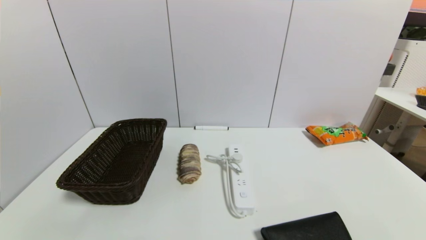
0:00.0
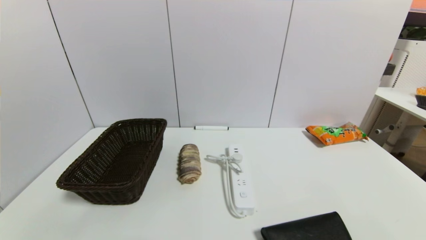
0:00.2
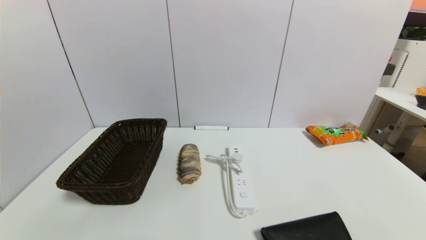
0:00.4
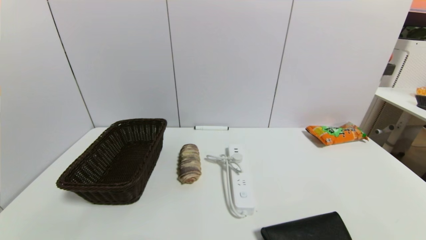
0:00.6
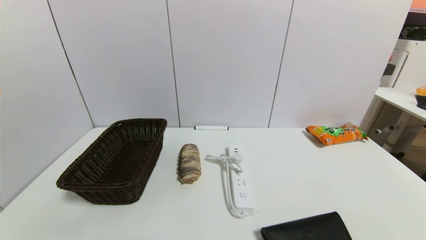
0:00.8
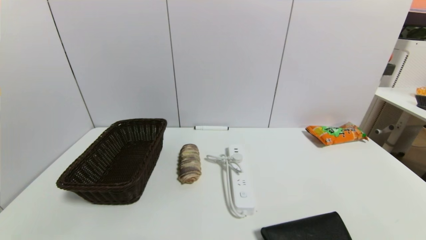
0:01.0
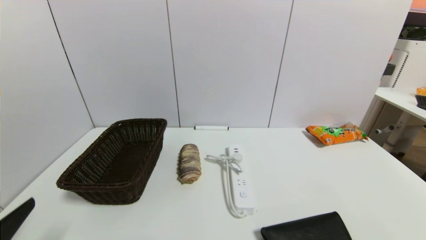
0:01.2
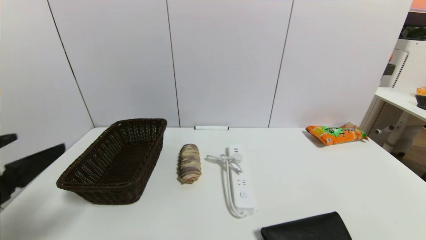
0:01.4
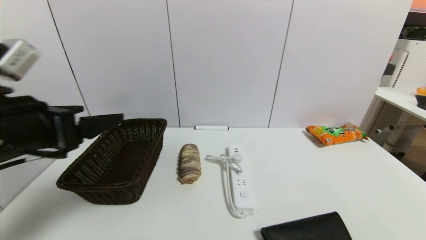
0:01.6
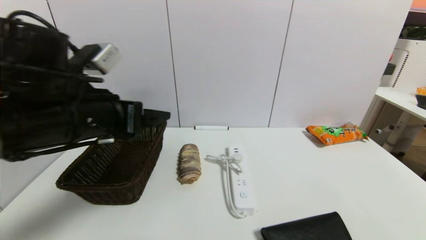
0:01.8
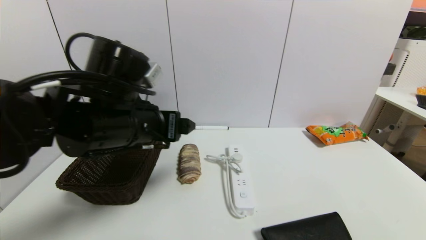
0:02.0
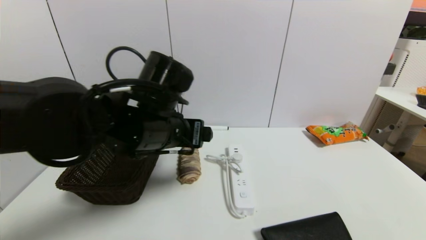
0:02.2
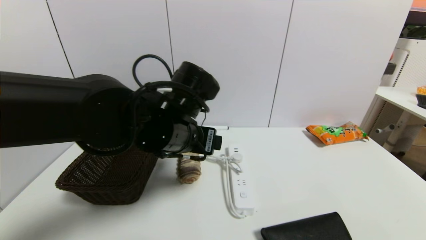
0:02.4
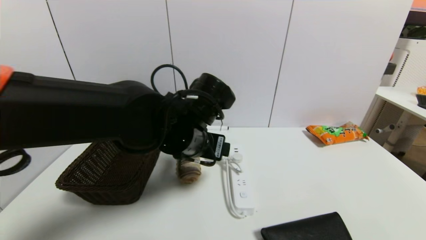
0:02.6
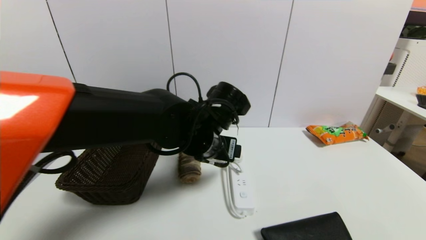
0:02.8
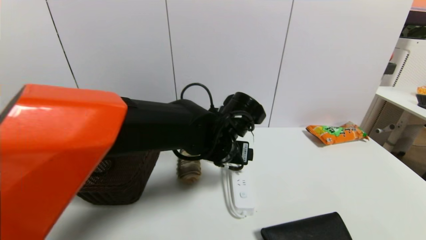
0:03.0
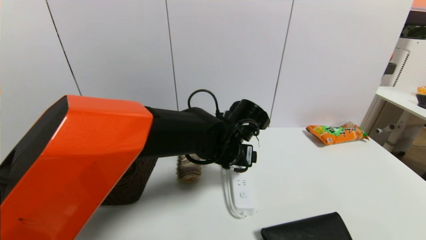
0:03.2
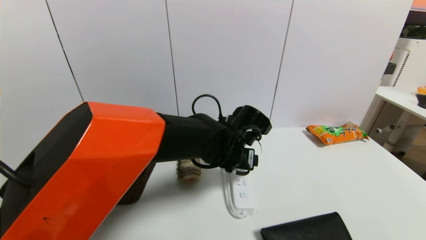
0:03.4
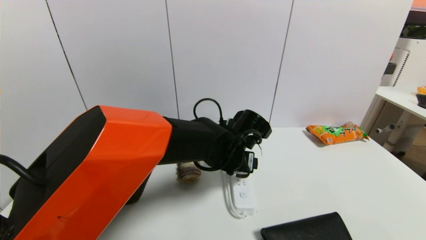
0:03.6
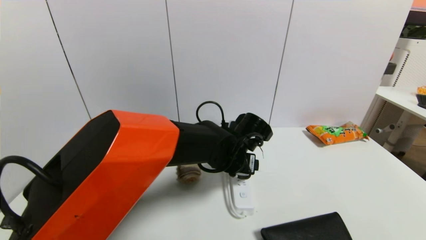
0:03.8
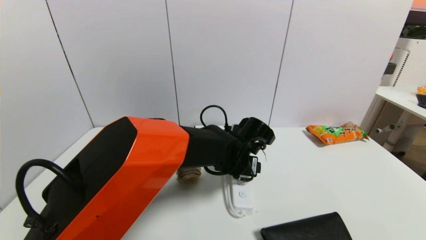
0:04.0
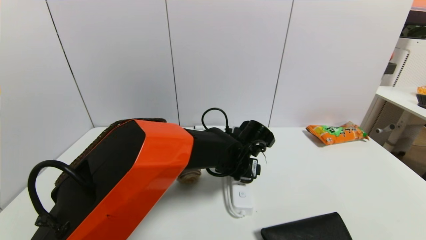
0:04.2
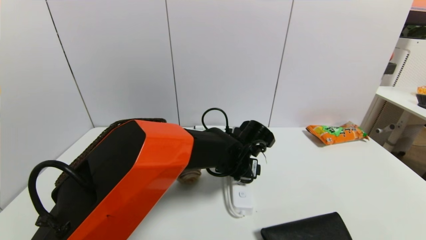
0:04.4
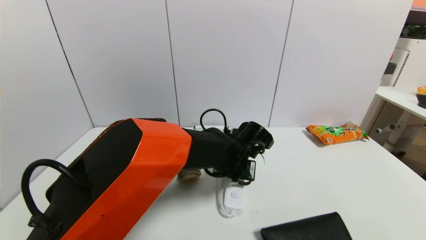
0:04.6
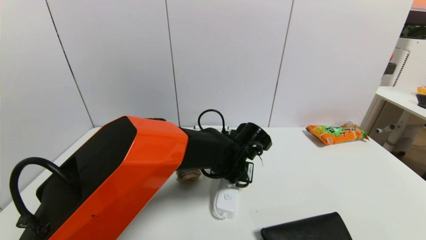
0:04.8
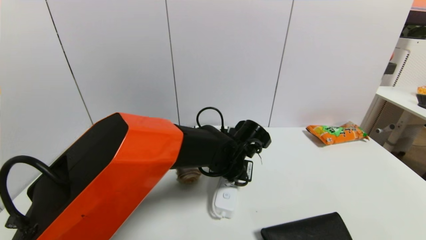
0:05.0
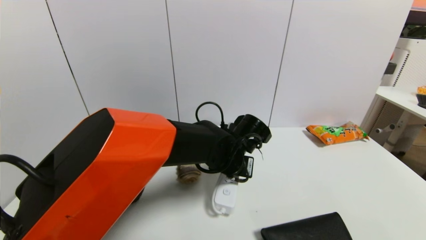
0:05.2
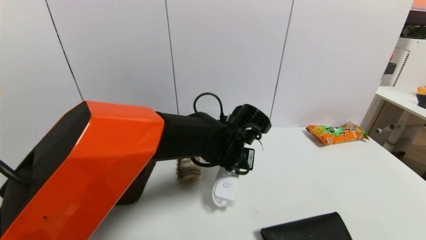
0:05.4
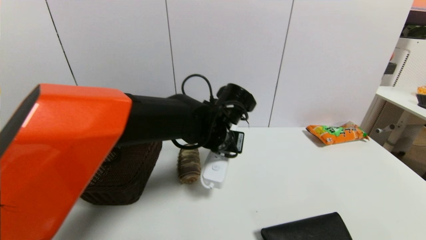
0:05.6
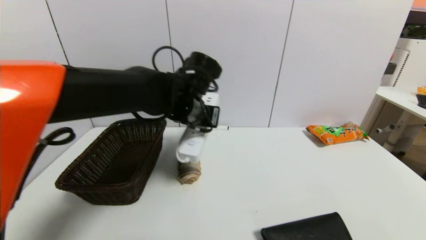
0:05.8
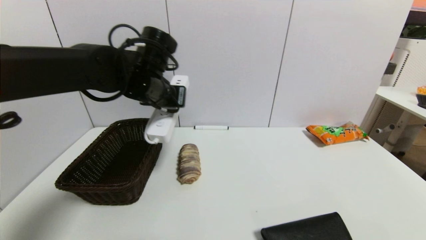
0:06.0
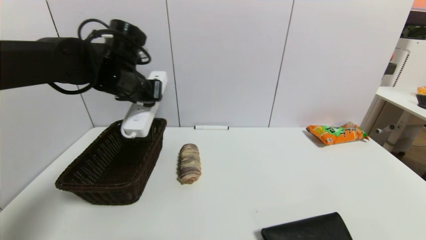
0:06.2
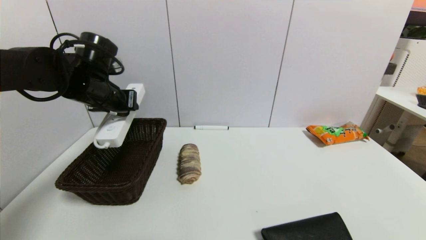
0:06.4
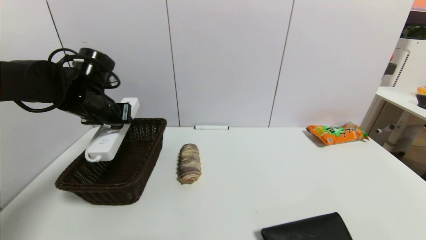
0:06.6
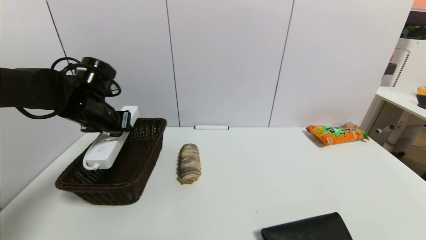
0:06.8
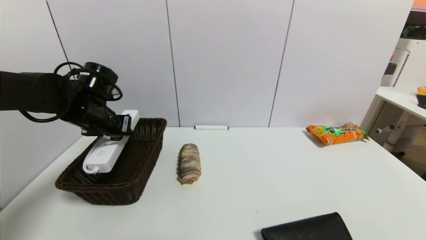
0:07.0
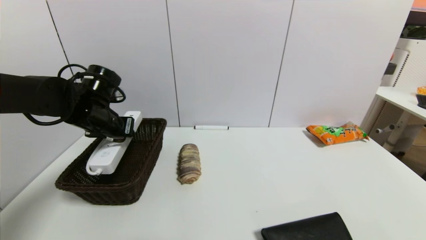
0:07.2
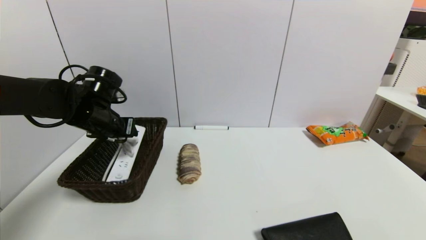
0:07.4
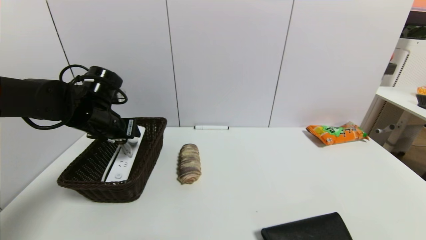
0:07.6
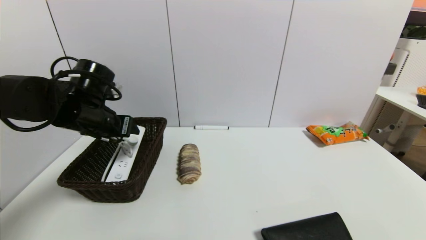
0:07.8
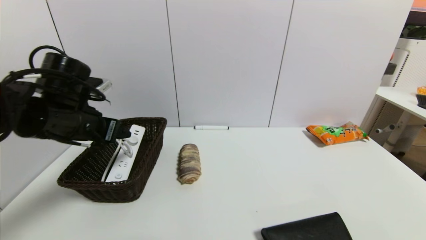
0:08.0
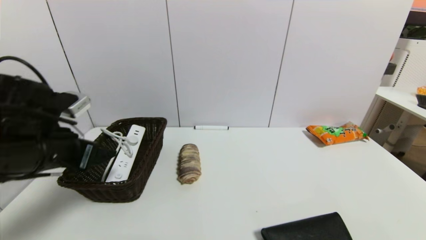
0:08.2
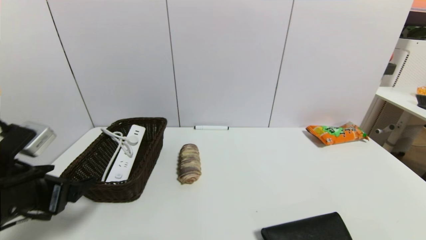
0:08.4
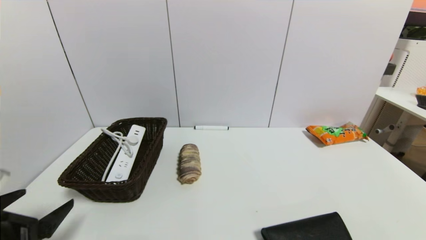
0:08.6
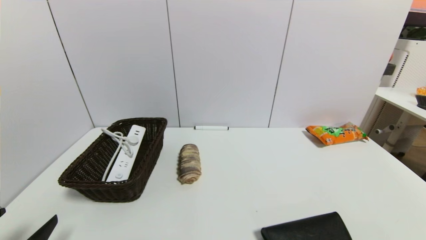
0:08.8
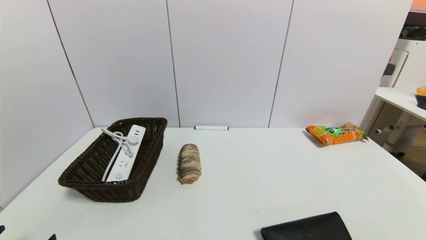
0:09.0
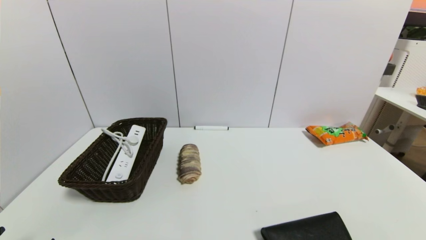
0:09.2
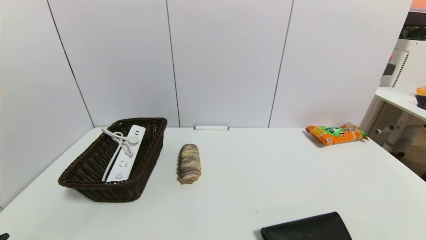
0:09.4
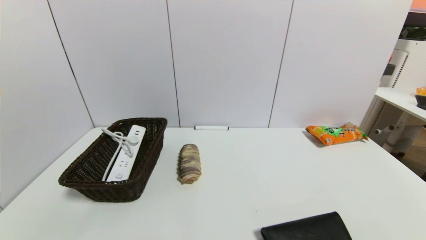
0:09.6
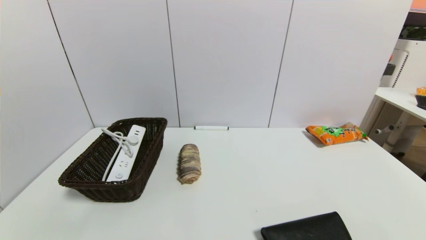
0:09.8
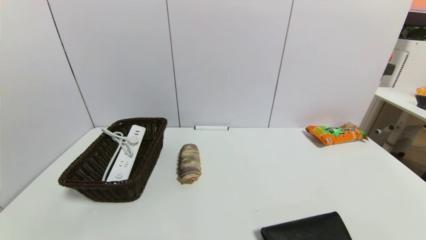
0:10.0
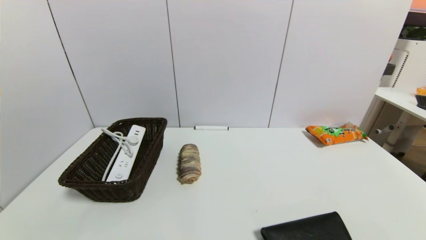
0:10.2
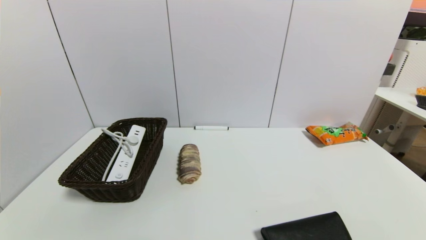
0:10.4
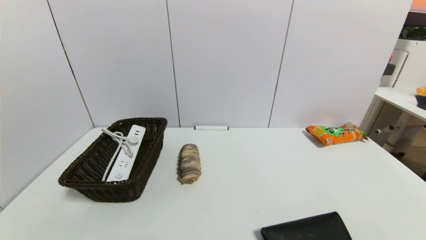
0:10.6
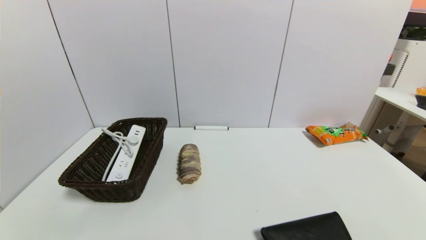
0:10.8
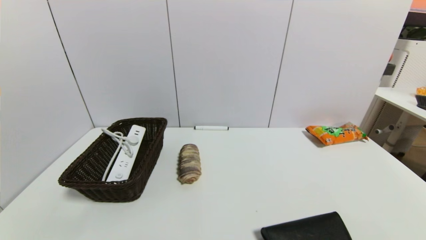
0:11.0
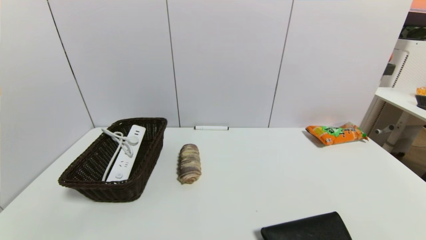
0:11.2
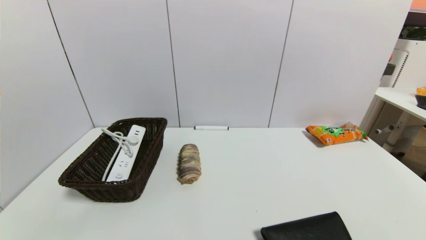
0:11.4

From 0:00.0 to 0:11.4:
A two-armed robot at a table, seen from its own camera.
Task of the whole recording: use a gripper to pick the target object and place on the brown basket.
Step, from 0:00.0 to 0:04.4: Grasp the plugboard with the left gripper.
Step, from 0:04.6 to 0:08.0: Place the plugboard into the basket with the left gripper.
From 0:00.0 to 0:01.4: The left gripper heads upward and forward, covering approximately 20 cm.
From 0:01.4 to 0:02.8: The left gripper shifts roughly 35 cm to the right and forward.
From 0:02.8 to 0:04.2: The left gripper travels downward and to the right by roughly 10 cm.
From 0:04.2 to 0:05.6: The left gripper travels upward by some 10 cm, and closes.
From 0:05.6 to 0:07.2: The left gripper travels to the left by about 25 cm.
From 0:07.2 to 0:08.6: The left gripper is displaced backward by some 25 cm, and opens its fingers.
From 0:08.6 to 0:10.0: The left gripper travels backward and downward by approximately 10 cm.
From 0:10.0 to 0:11.4: Both grippers stay put.

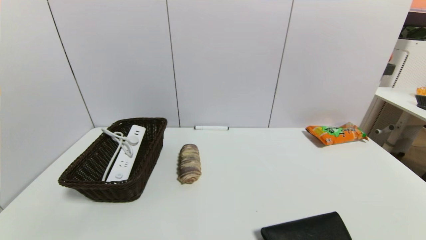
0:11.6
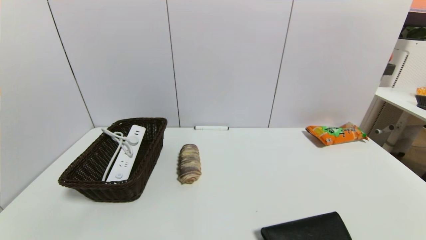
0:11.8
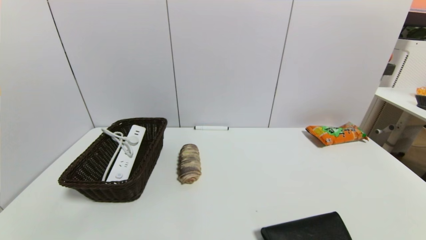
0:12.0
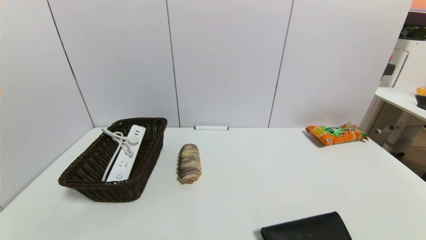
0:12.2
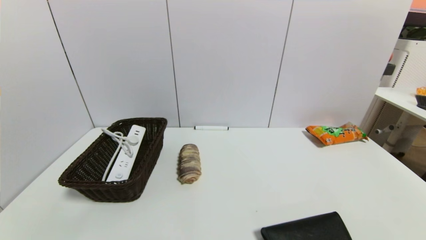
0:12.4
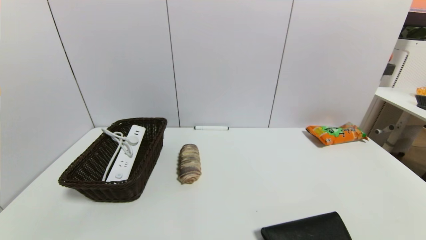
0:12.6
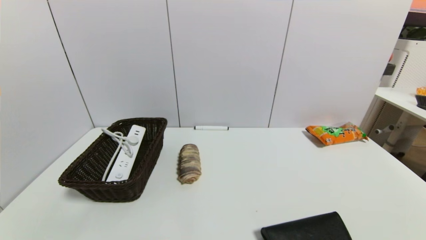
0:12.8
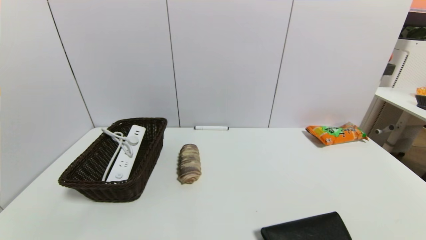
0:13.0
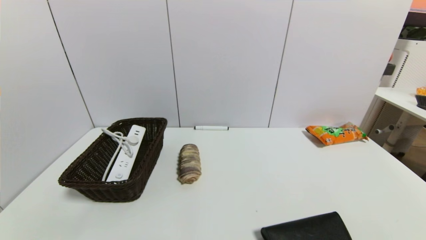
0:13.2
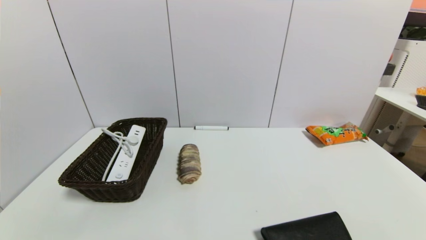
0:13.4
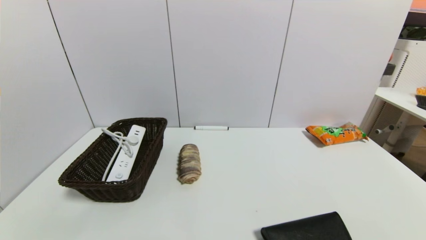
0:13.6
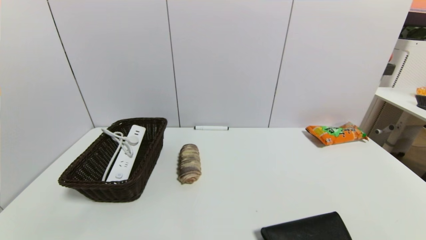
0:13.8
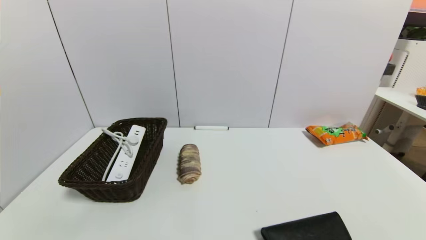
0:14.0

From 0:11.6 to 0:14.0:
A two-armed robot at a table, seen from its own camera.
Task of the whole recording: use a gripper to pick the target object and place on the brown basket.
From 0:11.6 to 0:14.0: Both grippers stay put.

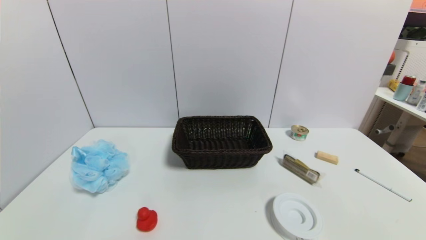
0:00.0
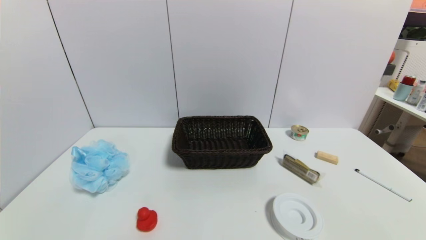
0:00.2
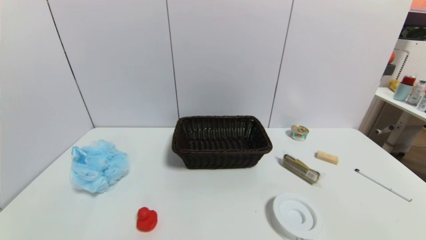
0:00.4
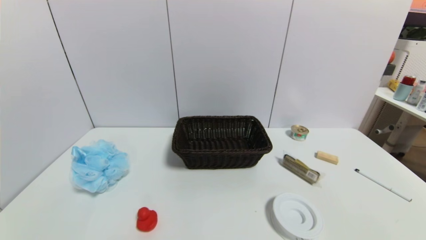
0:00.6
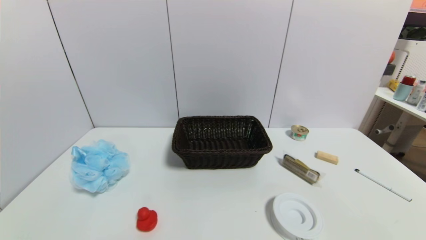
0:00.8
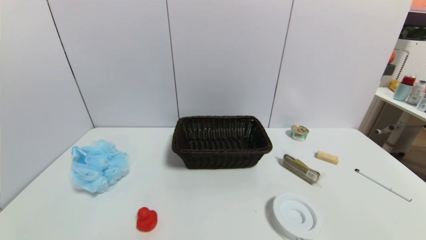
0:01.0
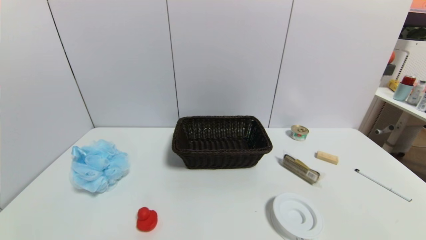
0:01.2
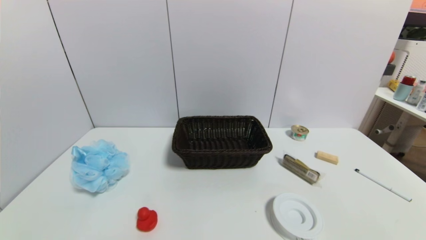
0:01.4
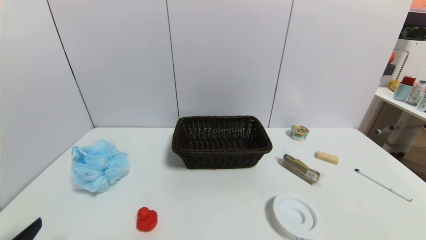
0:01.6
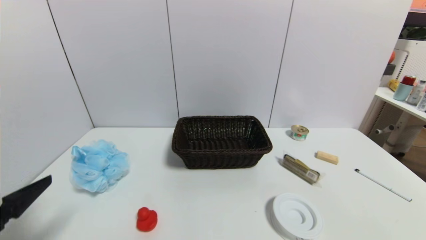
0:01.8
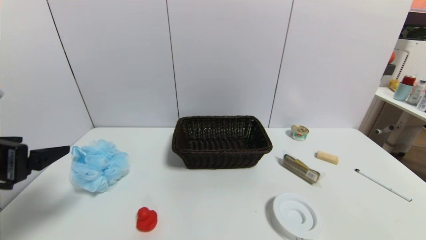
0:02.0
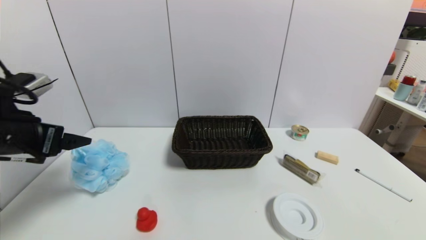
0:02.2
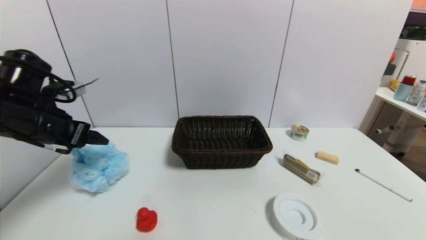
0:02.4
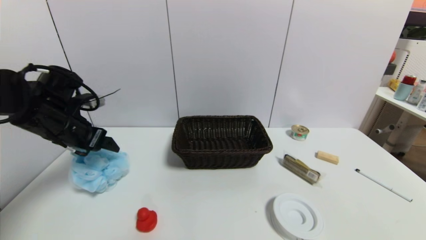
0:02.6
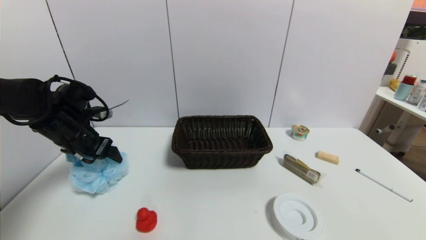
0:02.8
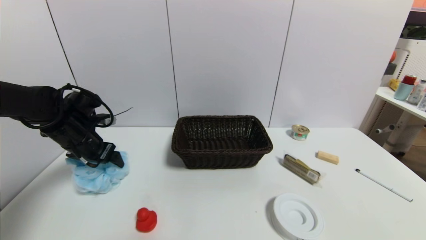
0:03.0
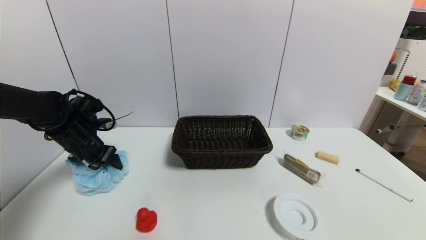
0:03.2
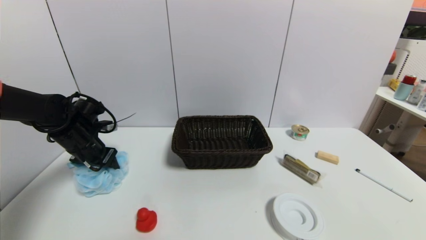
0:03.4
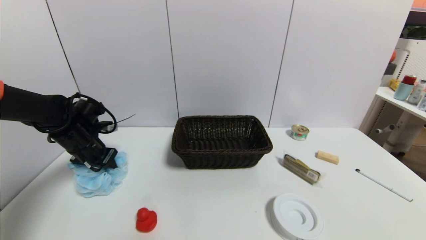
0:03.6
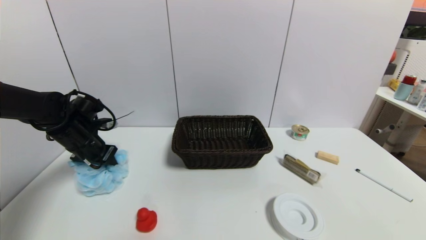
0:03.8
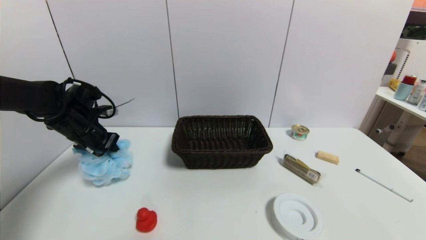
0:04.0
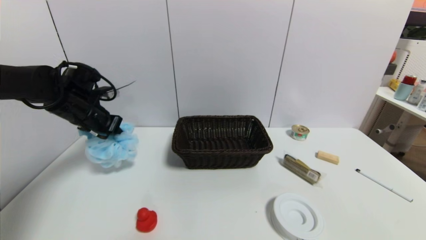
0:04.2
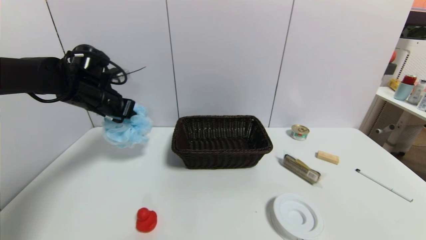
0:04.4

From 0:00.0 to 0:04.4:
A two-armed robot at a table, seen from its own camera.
Task of the whole recording: use a gripper to pick the target object and place on the brown basket.
Step, from 0:00.0 to 0:03.8: Grasp the shower sphere with the left gripper.
From 0:01.4 to 0:03.0: The left gripper goes some 35 cm forward.
From 0:03.0 to 0:04.4: The left gripper heads upward, covering about 5 cm, and closes.
